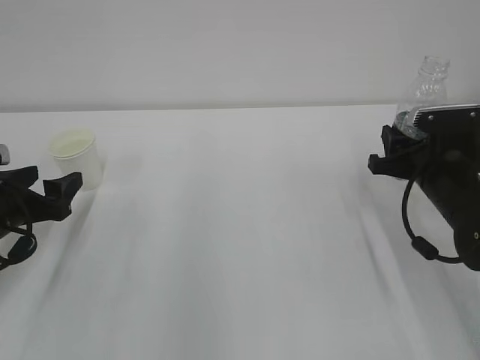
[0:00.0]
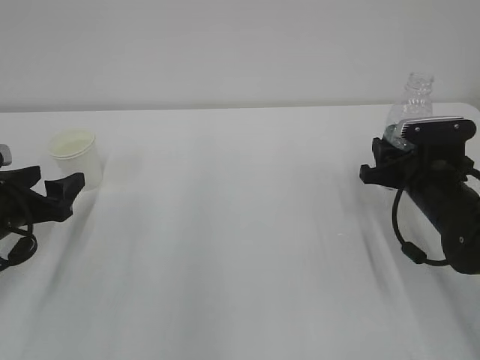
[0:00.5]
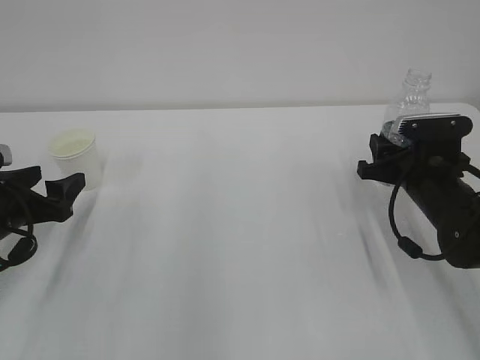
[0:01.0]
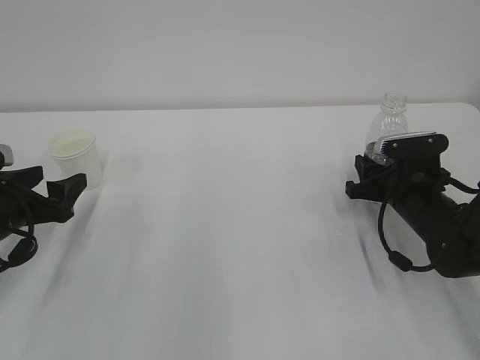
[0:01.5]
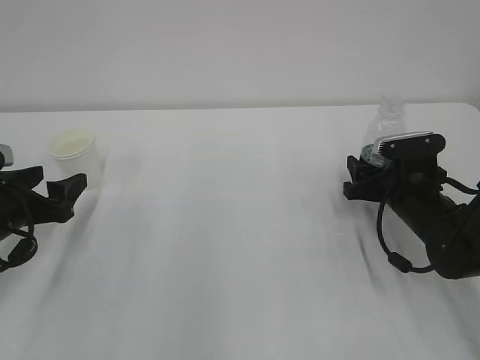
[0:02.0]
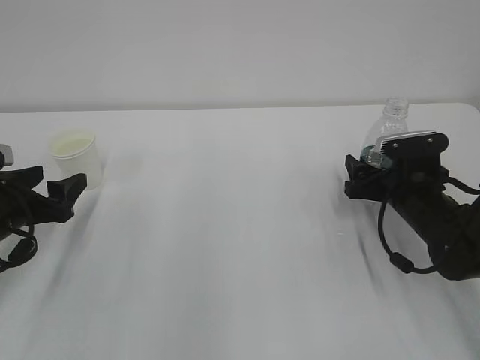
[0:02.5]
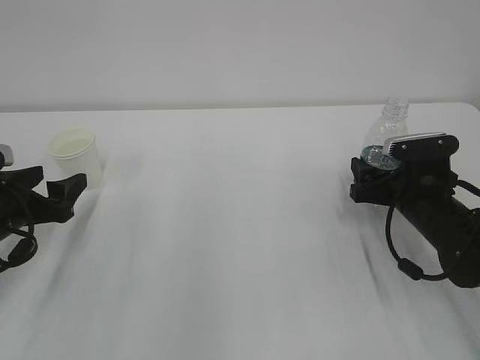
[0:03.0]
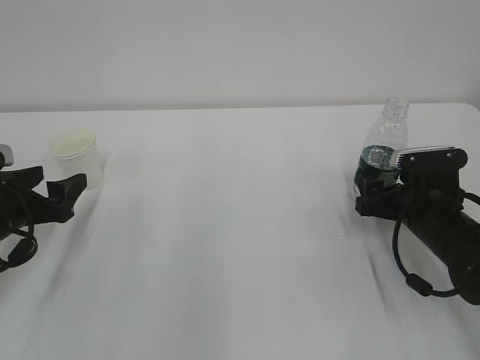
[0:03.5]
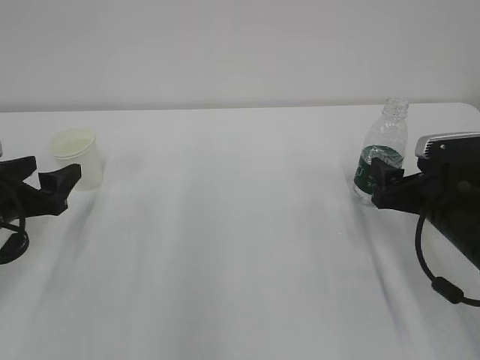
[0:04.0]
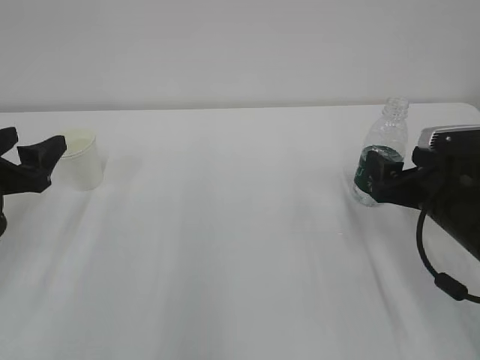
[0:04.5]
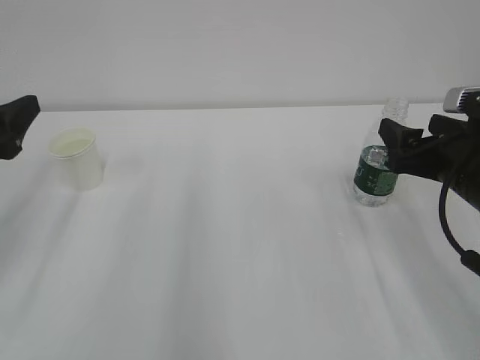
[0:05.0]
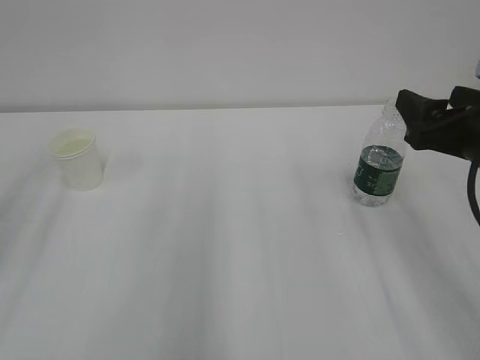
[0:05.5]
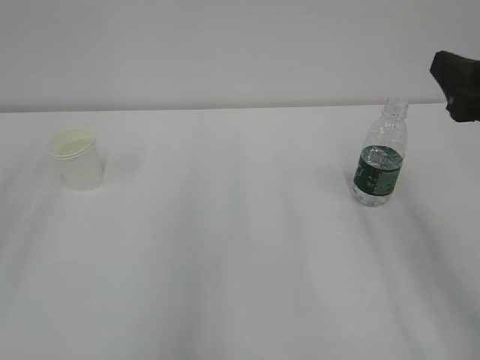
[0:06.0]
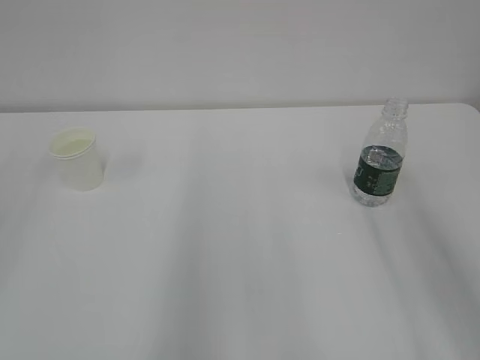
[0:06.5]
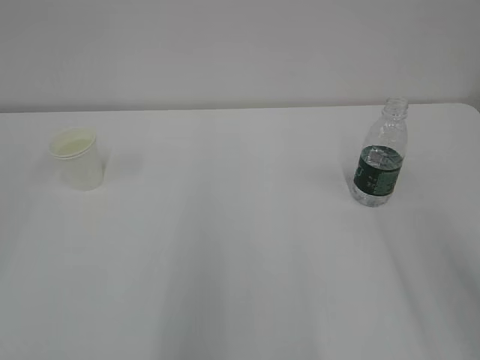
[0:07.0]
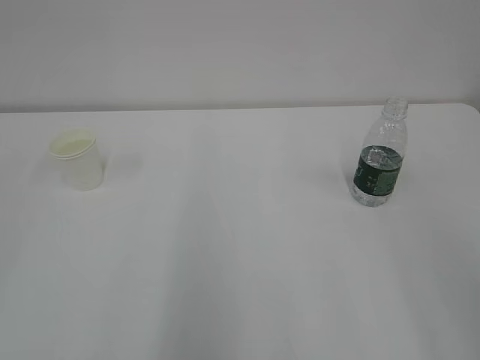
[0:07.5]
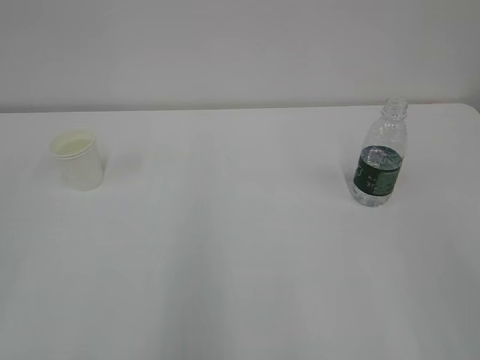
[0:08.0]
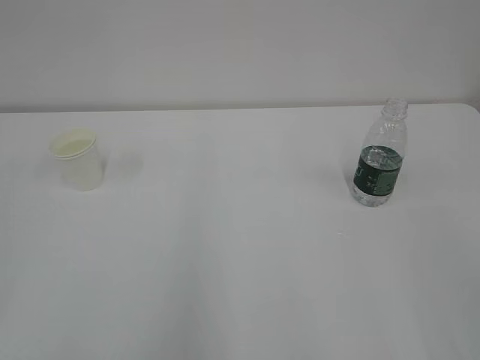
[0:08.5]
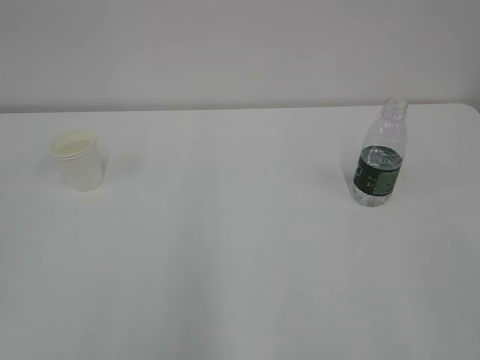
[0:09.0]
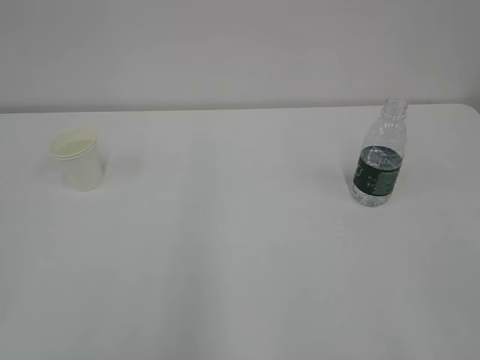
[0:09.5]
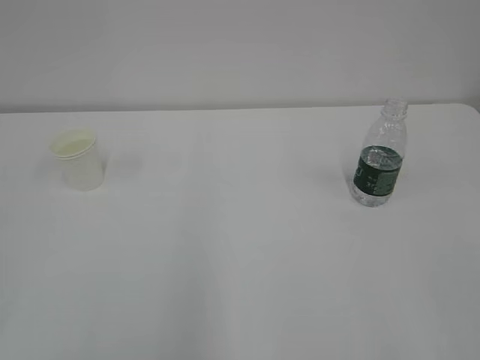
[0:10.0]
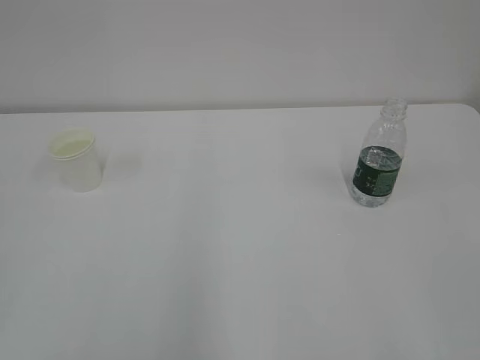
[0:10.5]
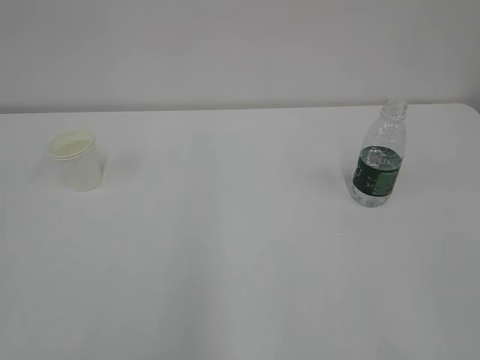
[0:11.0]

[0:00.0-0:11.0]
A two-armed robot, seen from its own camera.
0:00.0 to 0:02.0: The right gripper shifts roughly 5 cm downward, and opens up.
0:02.0 to 0:03.5: The grippers stay close to where they were, moving slightly.
0:03.5 to 0:05.5: The left gripper heads upward and backward, covering roughly 20 cm; the right gripper moves upward, roughly 15 cm.
0:05.5 to 0:07.5: The right gripper is displaced backward and upward by some 20 cm.

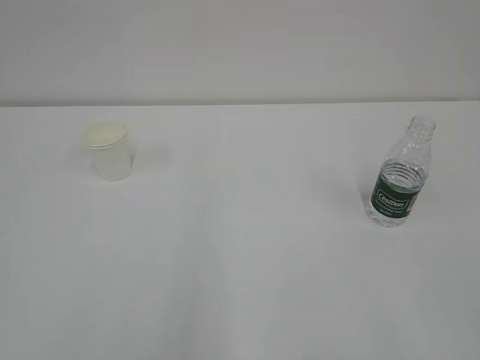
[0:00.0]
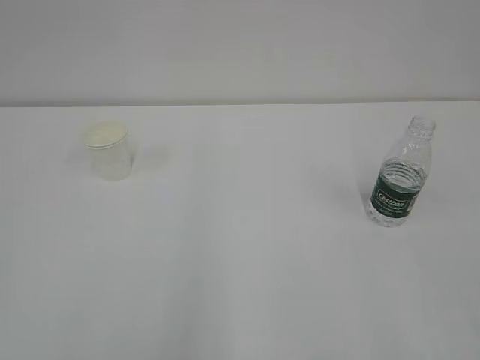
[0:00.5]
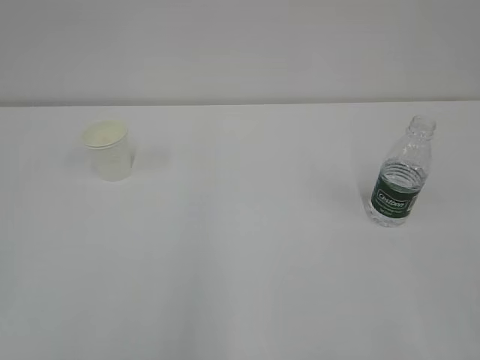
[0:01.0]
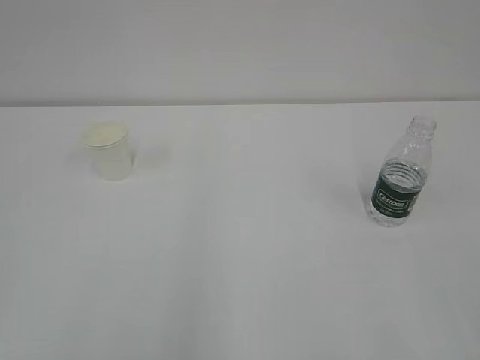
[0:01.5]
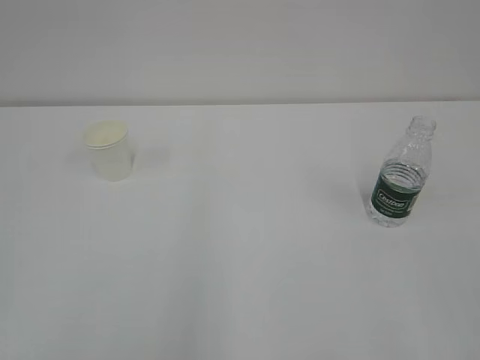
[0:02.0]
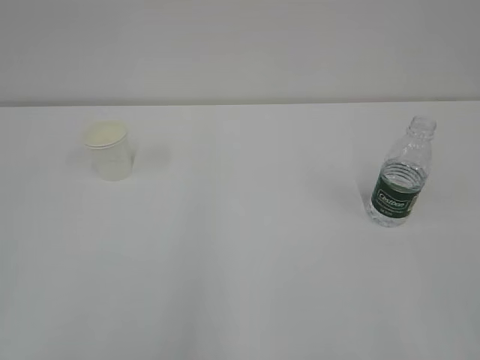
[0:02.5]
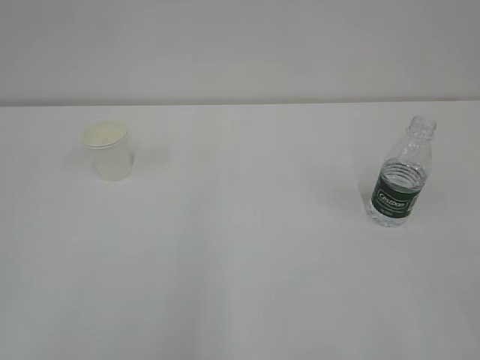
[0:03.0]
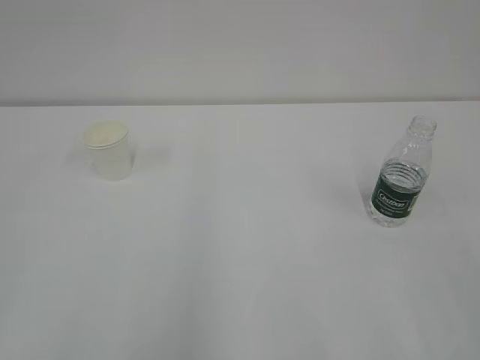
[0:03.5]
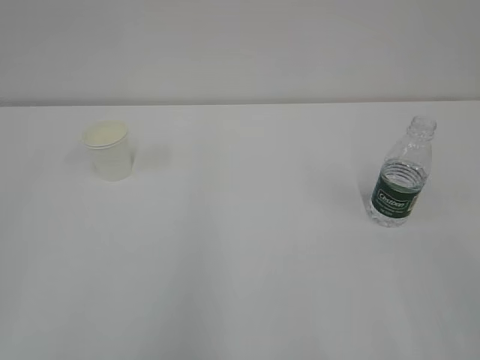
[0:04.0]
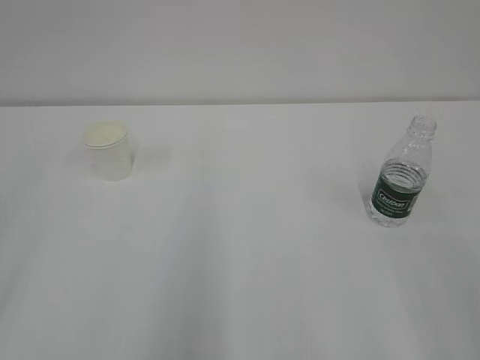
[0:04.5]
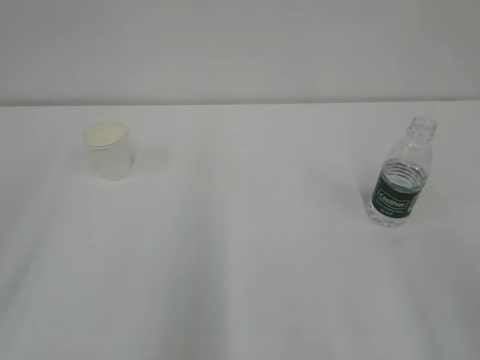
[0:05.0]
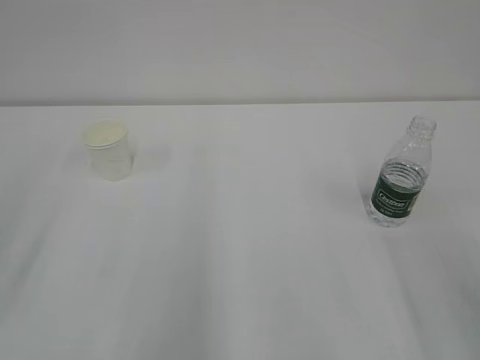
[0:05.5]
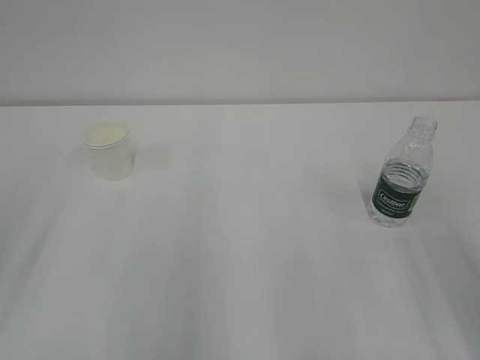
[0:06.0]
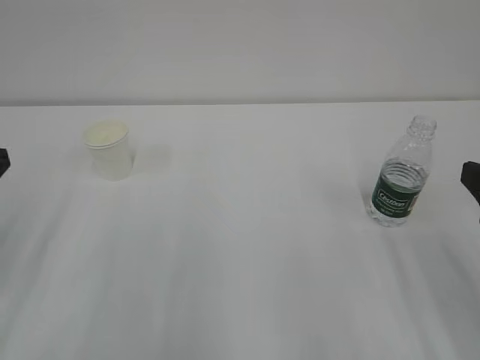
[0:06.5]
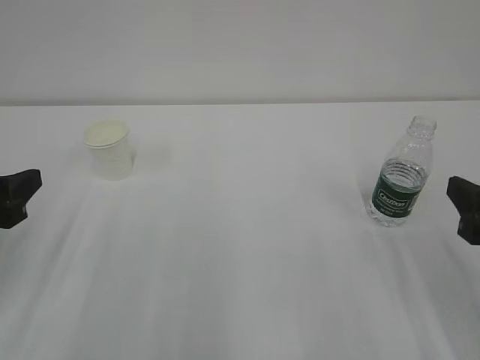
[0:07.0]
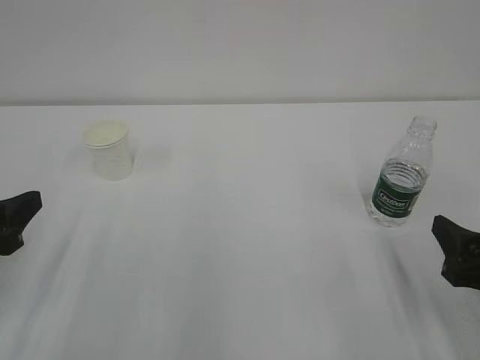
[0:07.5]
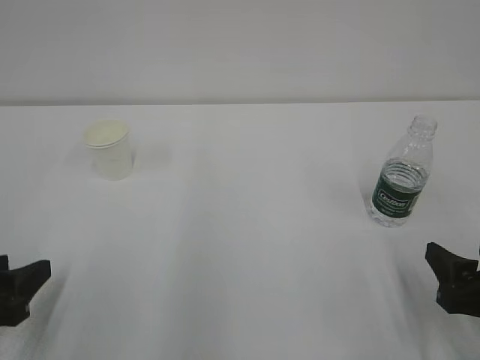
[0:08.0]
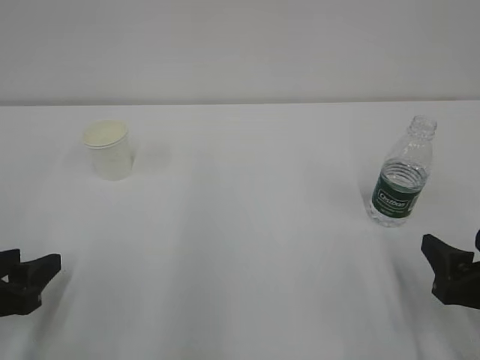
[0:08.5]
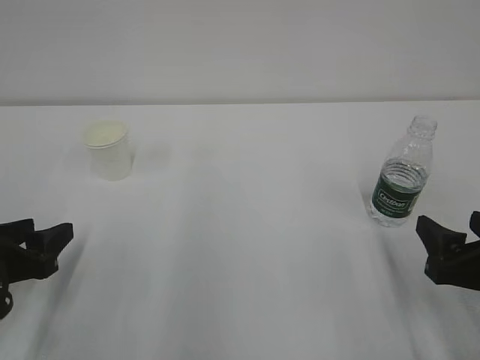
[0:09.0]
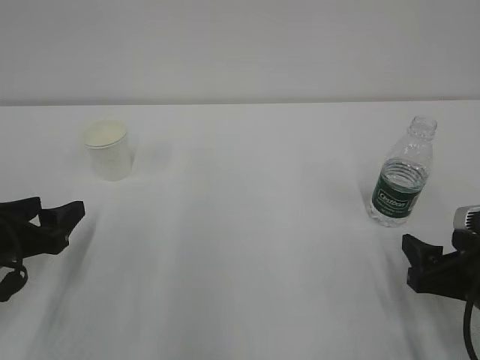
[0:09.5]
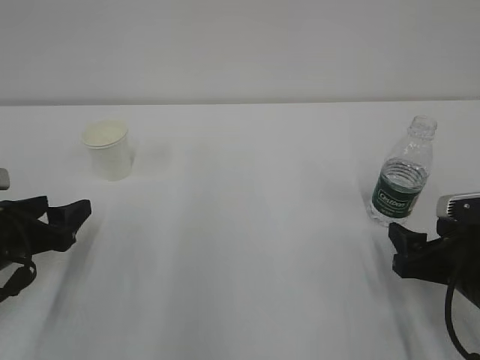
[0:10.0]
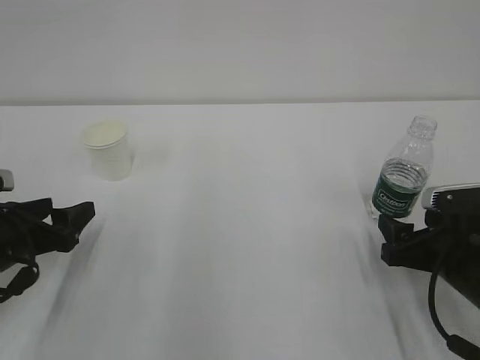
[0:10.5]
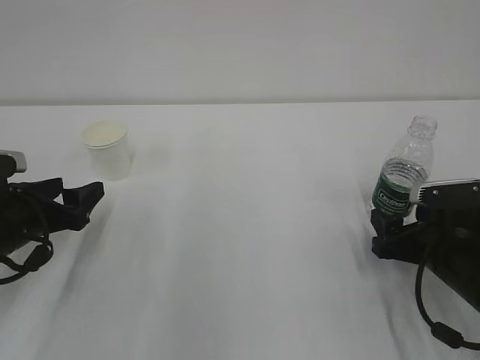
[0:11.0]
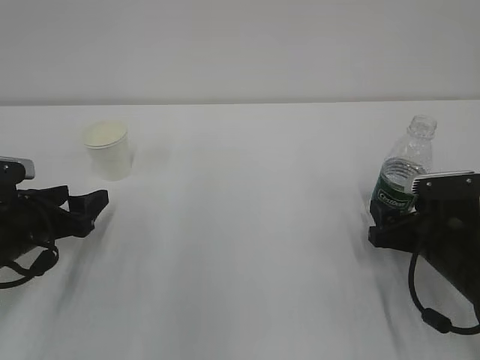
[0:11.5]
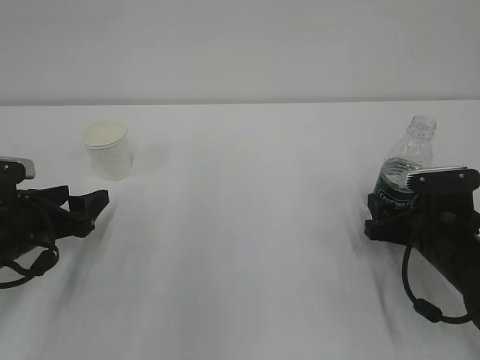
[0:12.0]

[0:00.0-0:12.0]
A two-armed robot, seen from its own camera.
0:06.0 to 0:08.0: The two grippers go roughly 15 cm downward.
0:08.0 to 0:10.0: The left gripper heads forward, covering some 10 cm, and opens its fingers. The right gripper heads forward, covering approximately 5 cm.
0:10.0 to 0:12.0: The right gripper heads forward, covering about 5 cm.

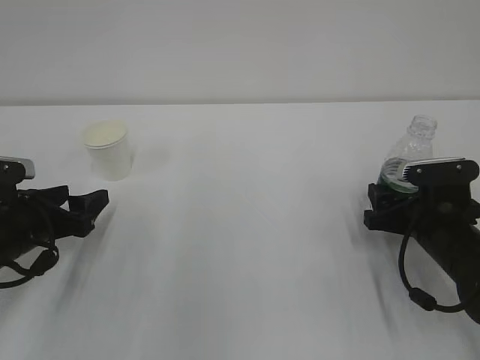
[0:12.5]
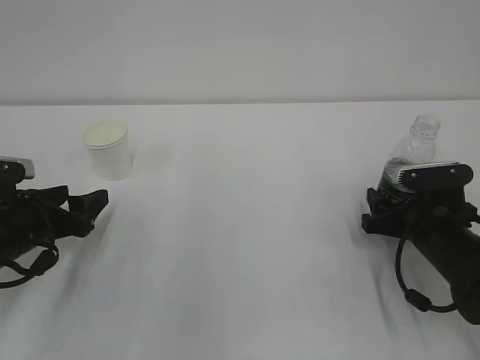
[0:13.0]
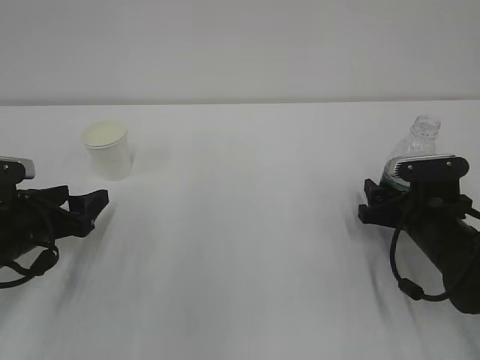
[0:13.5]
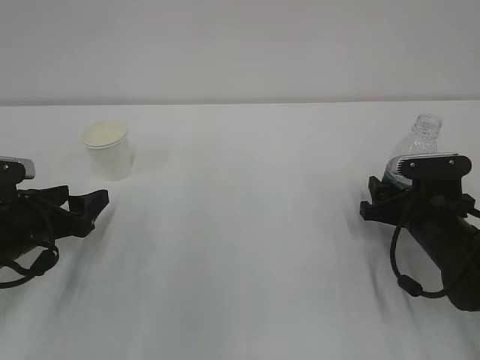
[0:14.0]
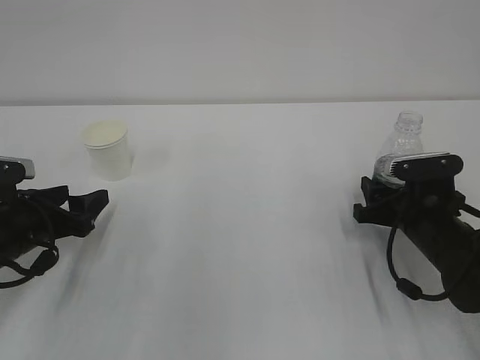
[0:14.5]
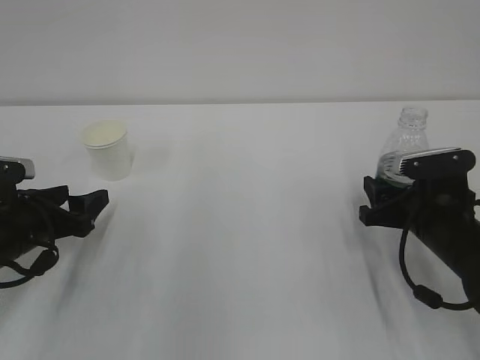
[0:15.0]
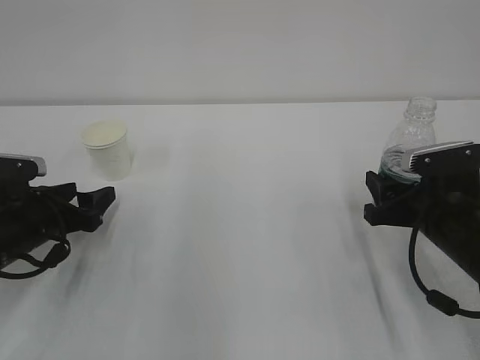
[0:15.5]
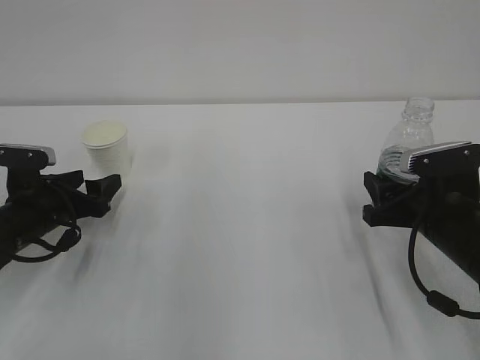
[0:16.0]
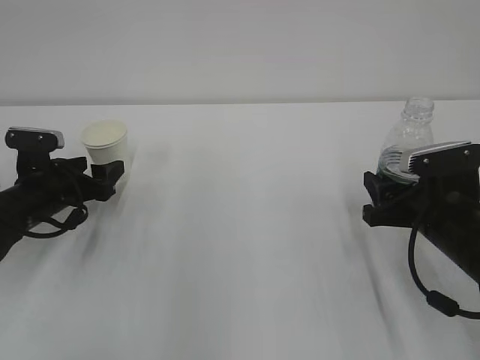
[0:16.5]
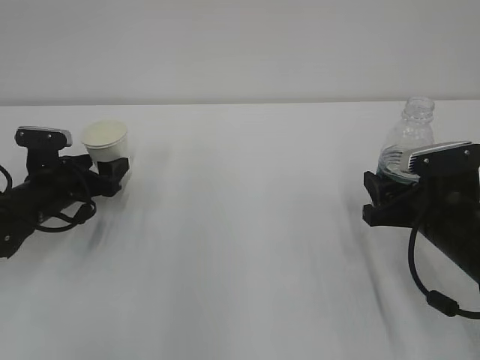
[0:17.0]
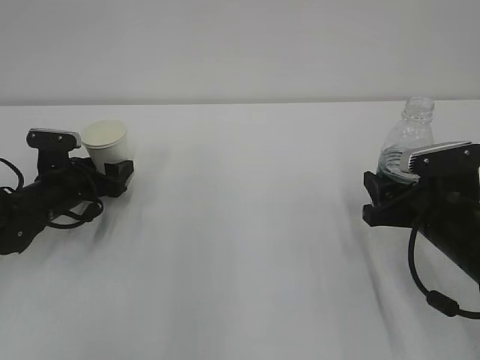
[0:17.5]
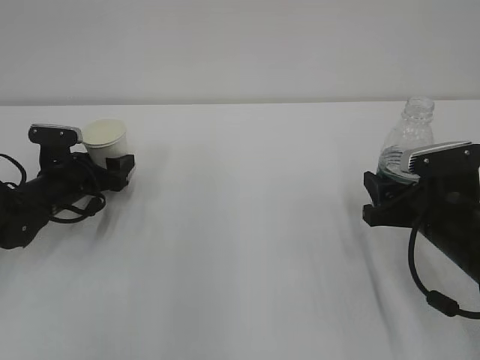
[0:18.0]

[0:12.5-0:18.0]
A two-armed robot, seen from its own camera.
0:12.5 to 0:14.5: The right gripper closes up.
0:14.5 to 0:16.0: The right gripper changes place by approximately 5 cm.
0:16.0 to 0:18.0: The left gripper heads forward, covering some 5 cm.
